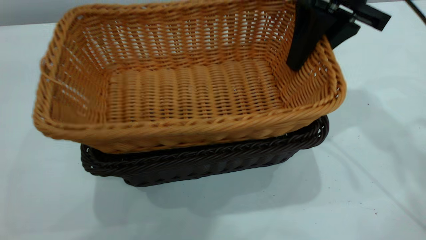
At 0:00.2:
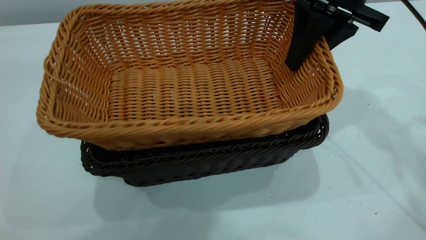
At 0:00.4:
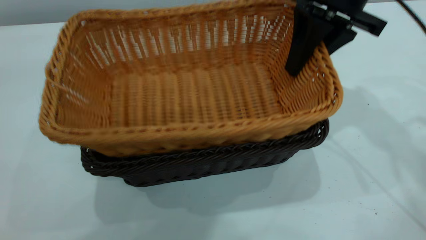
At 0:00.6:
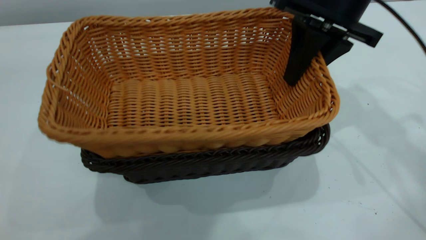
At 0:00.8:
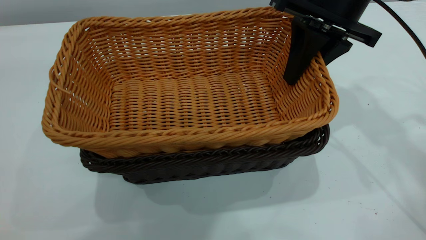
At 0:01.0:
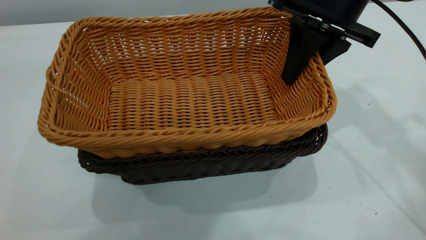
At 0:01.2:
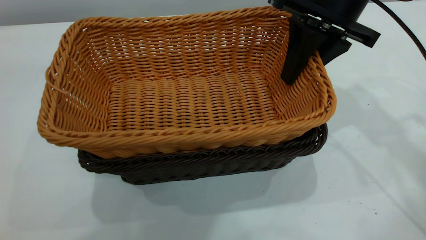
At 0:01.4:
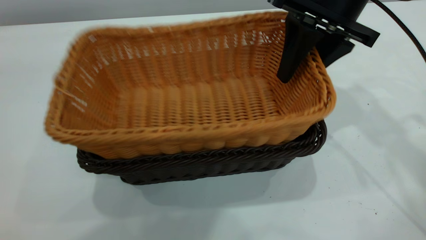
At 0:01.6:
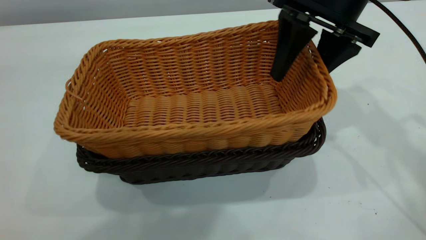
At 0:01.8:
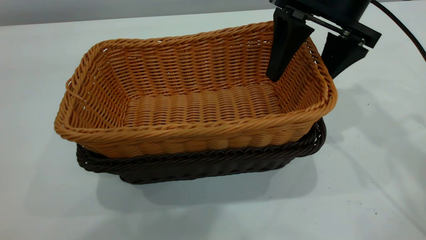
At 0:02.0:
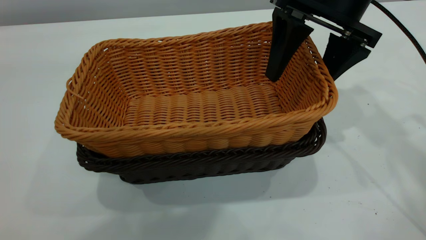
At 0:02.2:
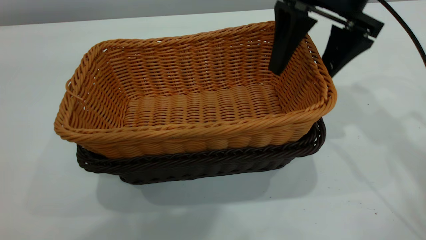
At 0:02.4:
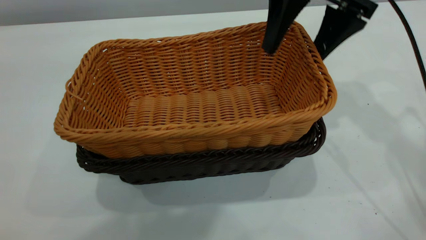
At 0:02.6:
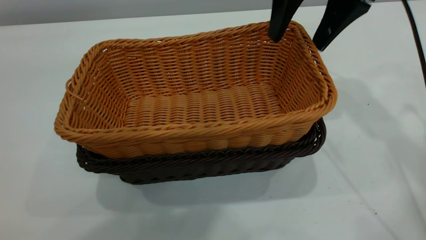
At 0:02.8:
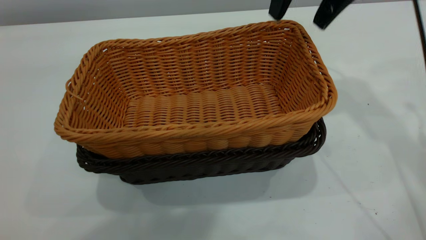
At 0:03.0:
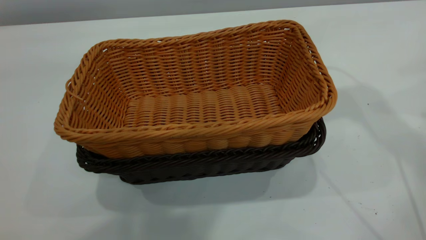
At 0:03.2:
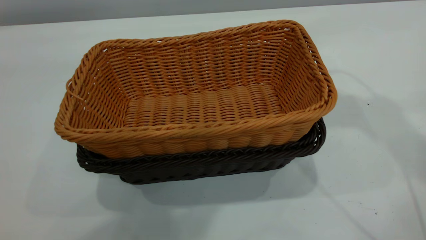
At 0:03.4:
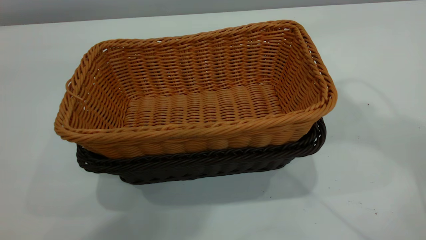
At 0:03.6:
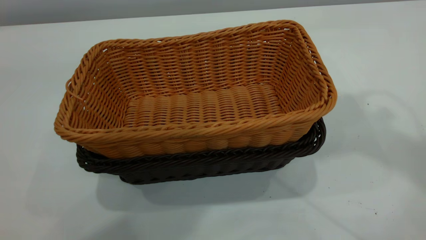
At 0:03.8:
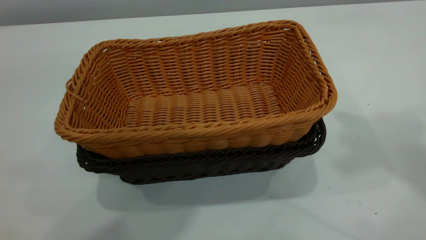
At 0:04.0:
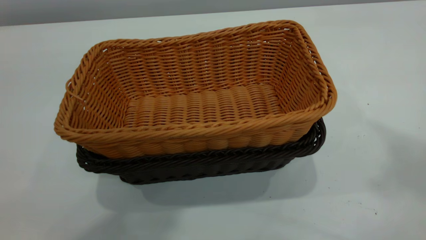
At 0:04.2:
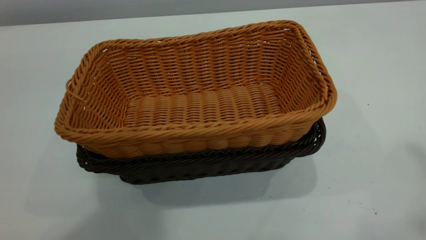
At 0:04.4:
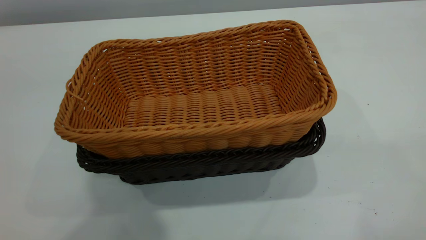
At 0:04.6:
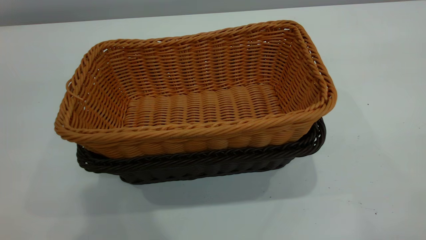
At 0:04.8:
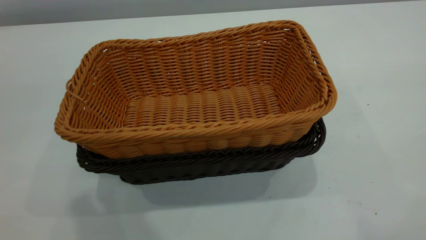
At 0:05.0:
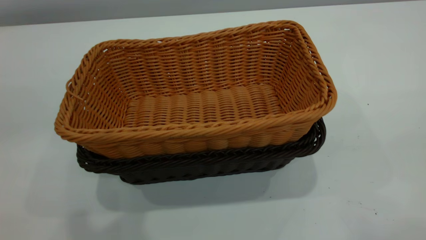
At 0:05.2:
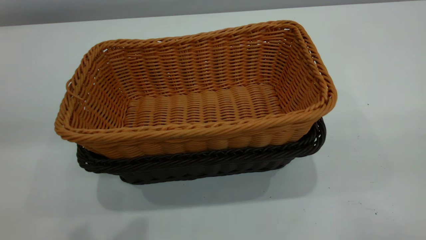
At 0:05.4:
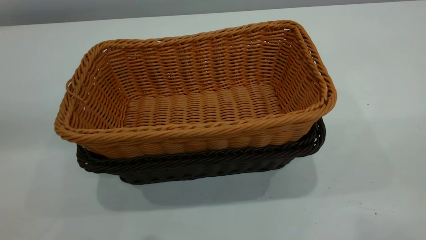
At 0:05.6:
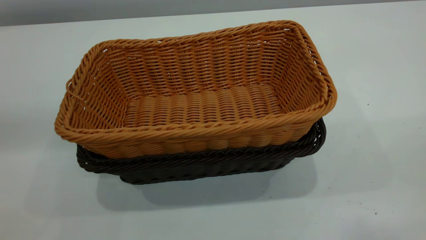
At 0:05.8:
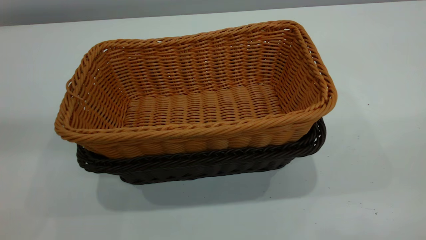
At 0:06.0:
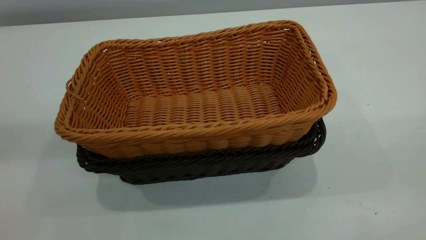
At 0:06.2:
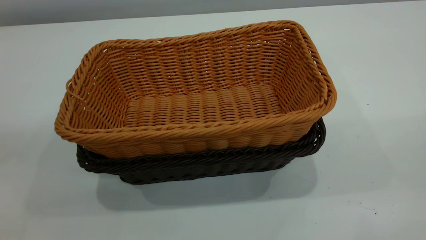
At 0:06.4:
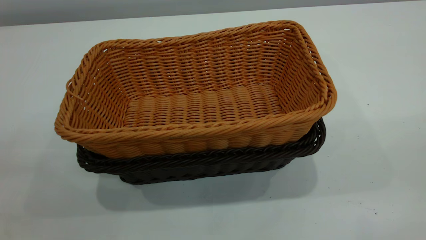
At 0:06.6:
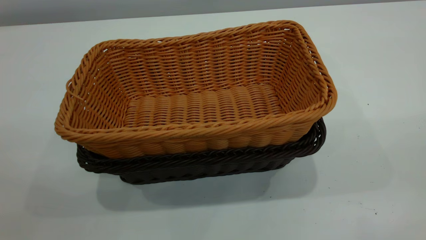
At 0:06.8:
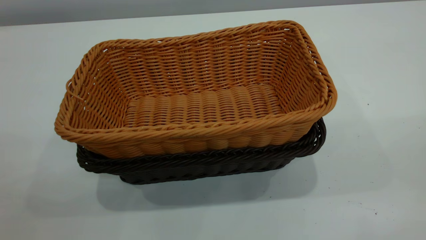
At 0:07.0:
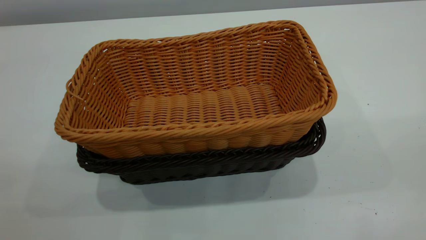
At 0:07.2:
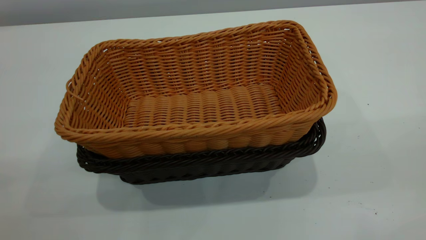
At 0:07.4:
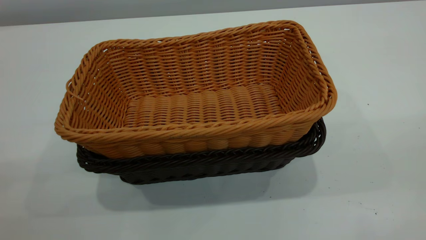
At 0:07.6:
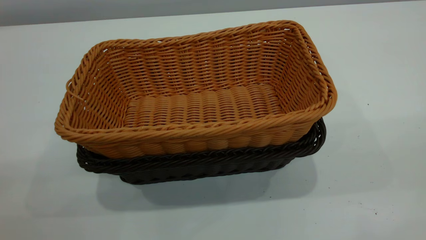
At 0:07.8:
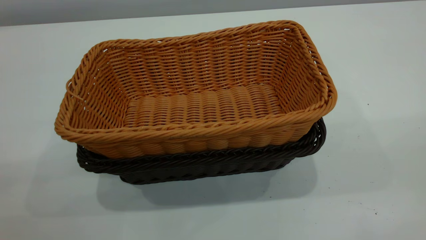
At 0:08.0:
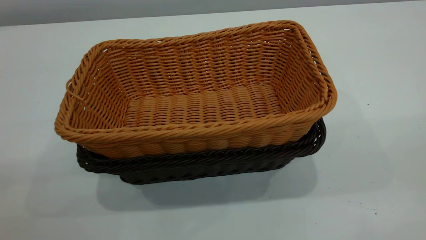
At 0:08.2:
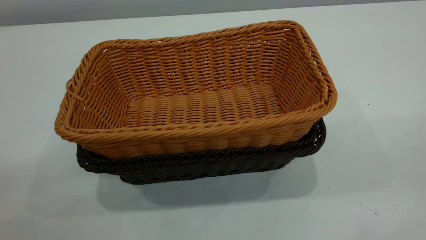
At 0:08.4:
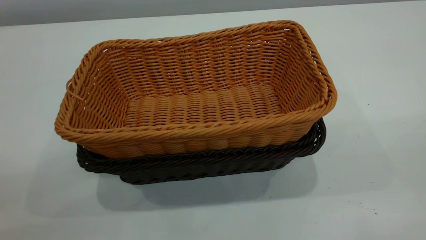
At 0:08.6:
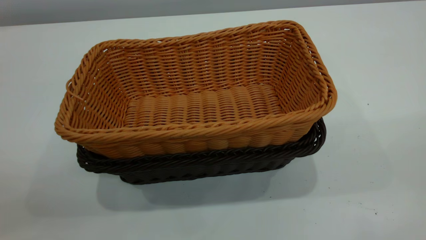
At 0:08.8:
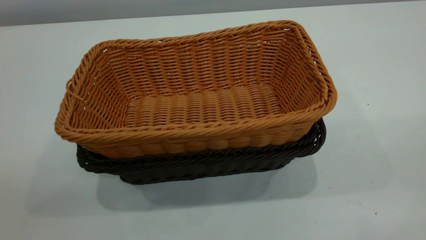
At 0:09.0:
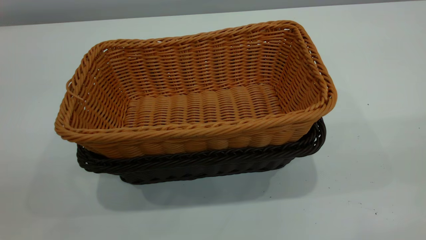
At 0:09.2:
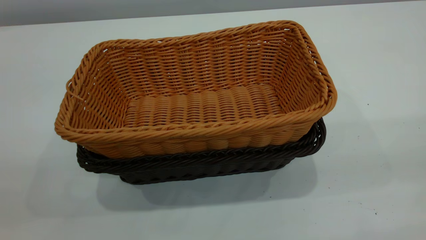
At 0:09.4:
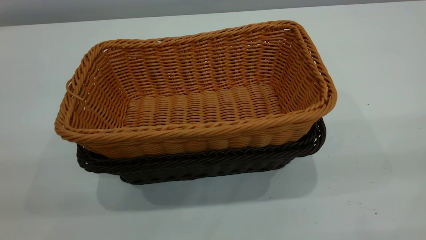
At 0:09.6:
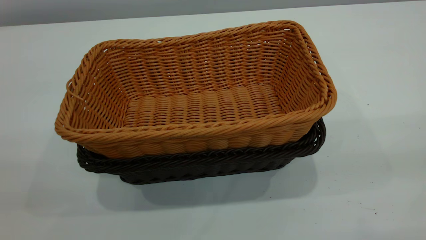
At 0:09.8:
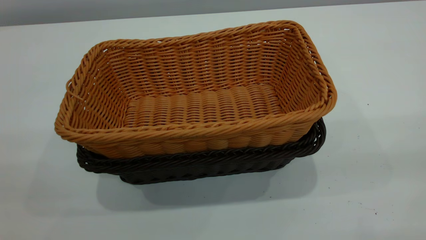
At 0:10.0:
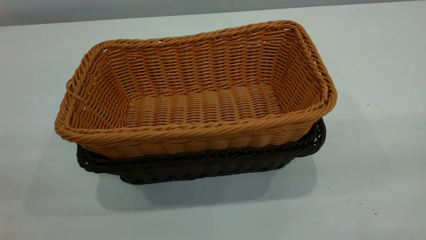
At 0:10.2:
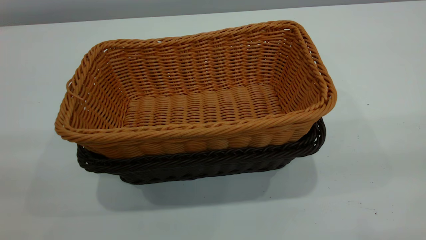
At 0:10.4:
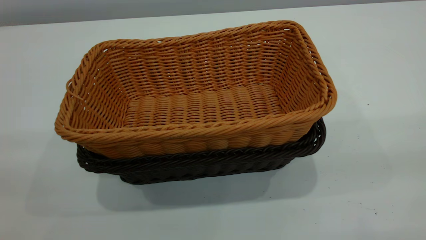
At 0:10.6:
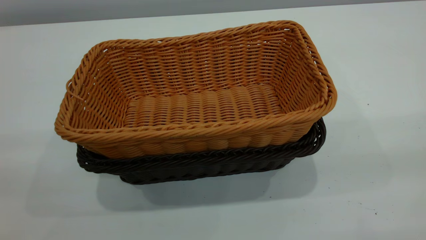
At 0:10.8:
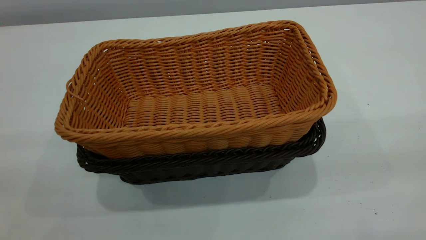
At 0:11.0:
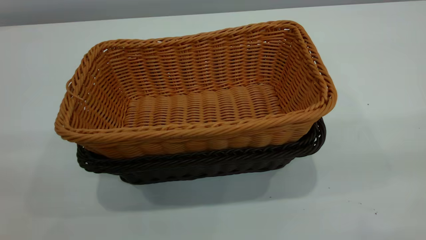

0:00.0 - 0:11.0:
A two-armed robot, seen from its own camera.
Task of the whole recording: the left gripper grasp the black basket and place it in the center of the table, the right gripper grasp the brown basket and place it inside the black one.
Step, 0:00.0 - 0:02.2: Place the light basket on the dark basket with right gripper.
0:00.0 - 0:01.6: The right gripper opens.
0:01.6 - 0:03.2: The right gripper goes some 15 cm upward.
0:03.2 - 0:04.8: The left gripper moves approximately 5 cm, and closes its fingers.
